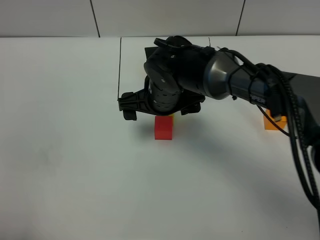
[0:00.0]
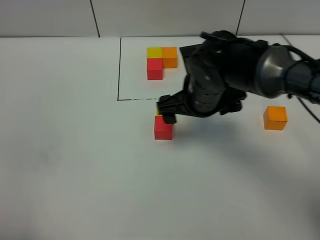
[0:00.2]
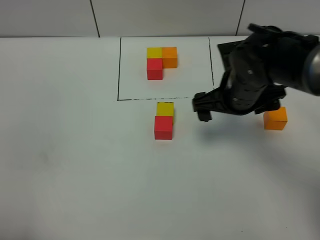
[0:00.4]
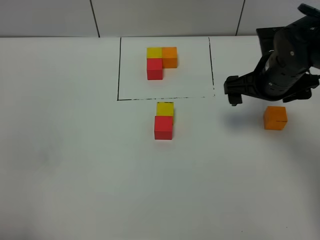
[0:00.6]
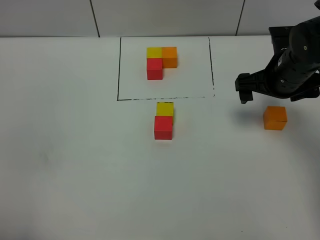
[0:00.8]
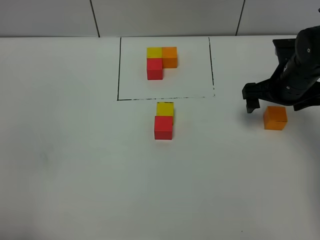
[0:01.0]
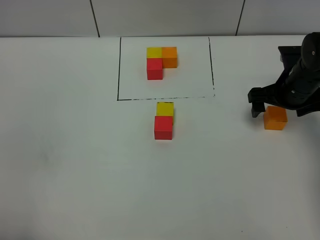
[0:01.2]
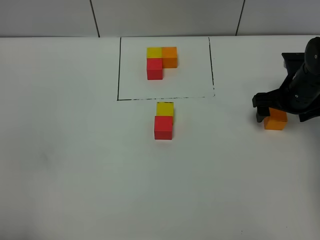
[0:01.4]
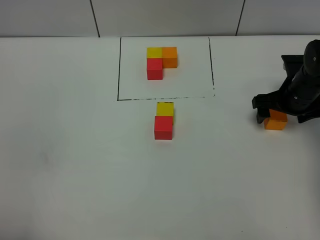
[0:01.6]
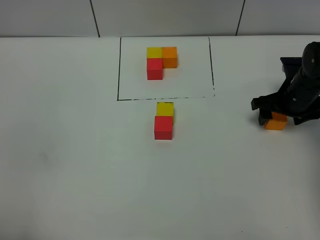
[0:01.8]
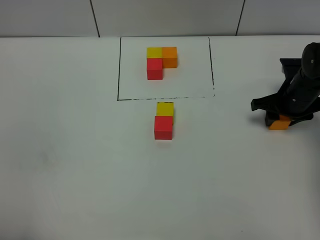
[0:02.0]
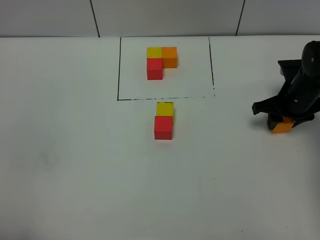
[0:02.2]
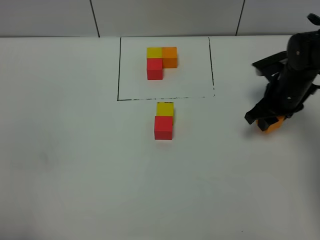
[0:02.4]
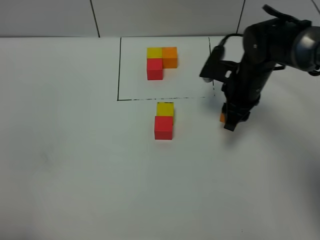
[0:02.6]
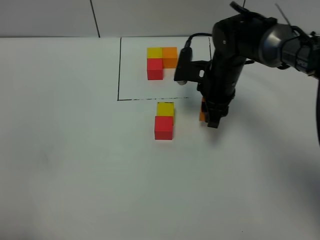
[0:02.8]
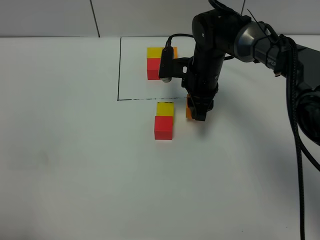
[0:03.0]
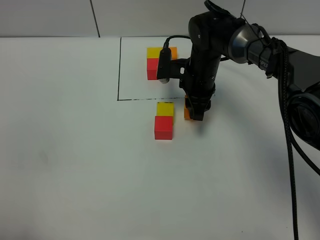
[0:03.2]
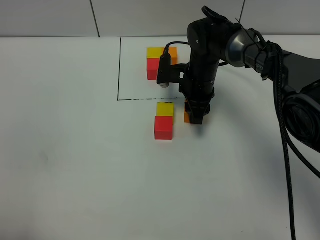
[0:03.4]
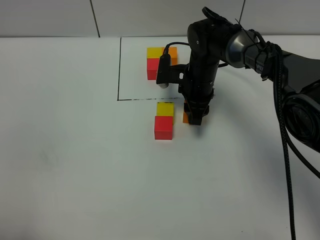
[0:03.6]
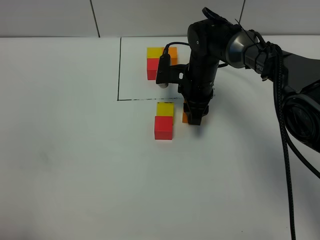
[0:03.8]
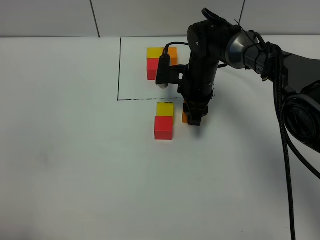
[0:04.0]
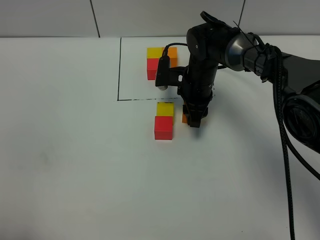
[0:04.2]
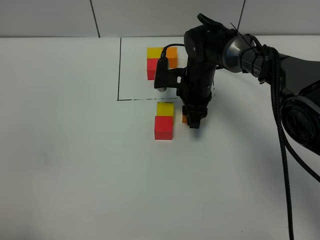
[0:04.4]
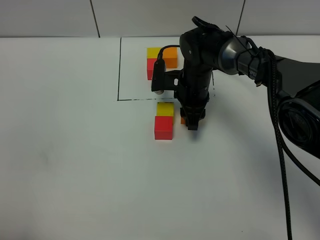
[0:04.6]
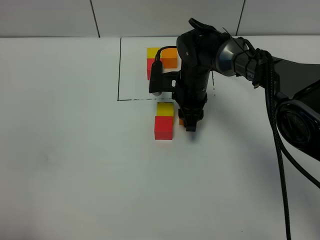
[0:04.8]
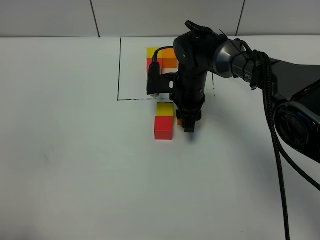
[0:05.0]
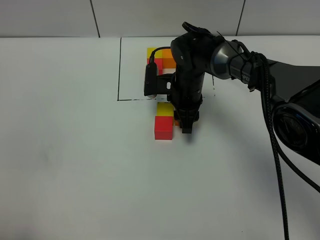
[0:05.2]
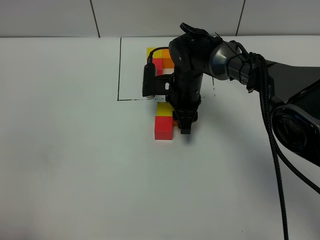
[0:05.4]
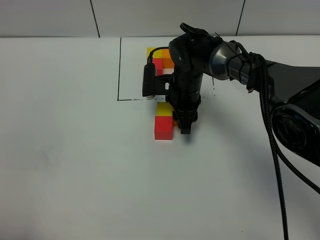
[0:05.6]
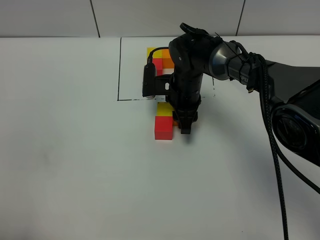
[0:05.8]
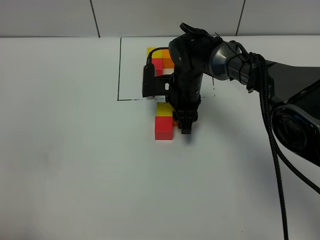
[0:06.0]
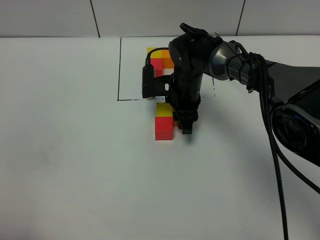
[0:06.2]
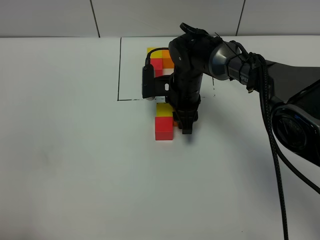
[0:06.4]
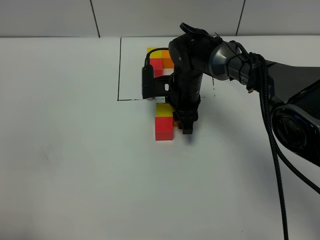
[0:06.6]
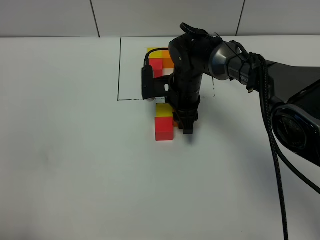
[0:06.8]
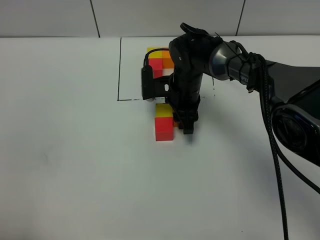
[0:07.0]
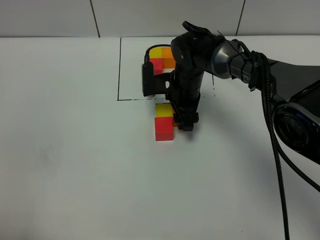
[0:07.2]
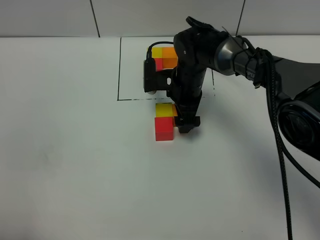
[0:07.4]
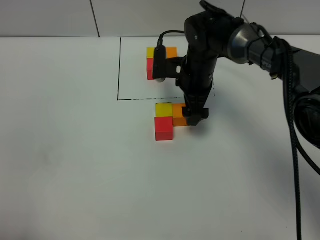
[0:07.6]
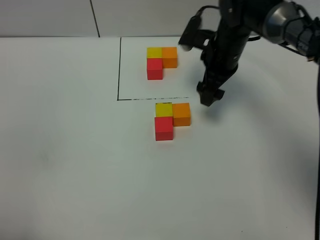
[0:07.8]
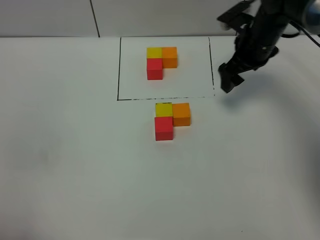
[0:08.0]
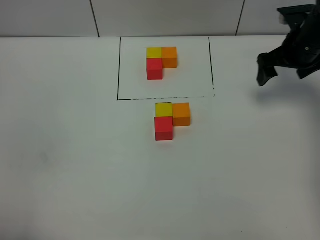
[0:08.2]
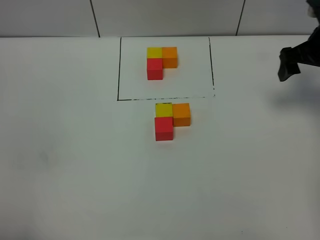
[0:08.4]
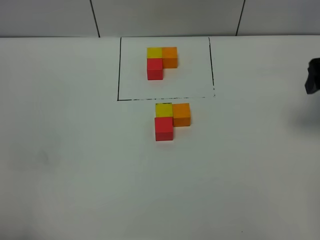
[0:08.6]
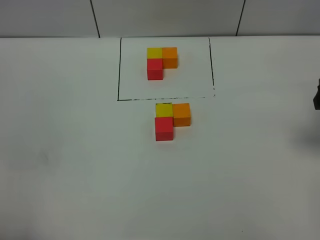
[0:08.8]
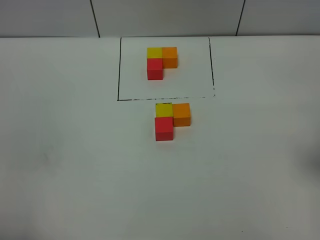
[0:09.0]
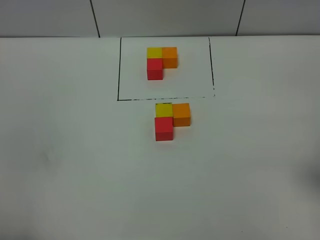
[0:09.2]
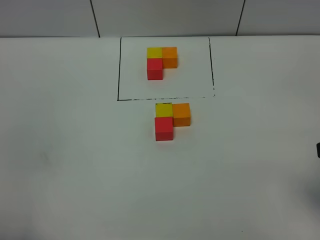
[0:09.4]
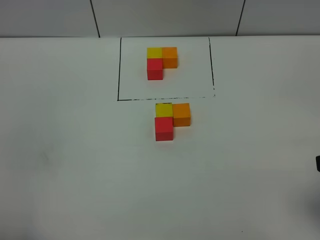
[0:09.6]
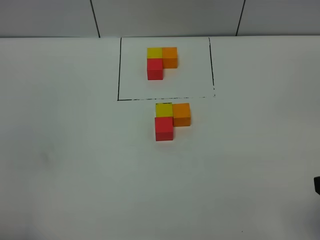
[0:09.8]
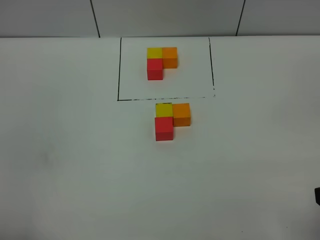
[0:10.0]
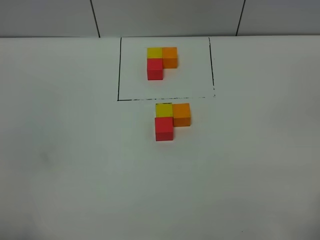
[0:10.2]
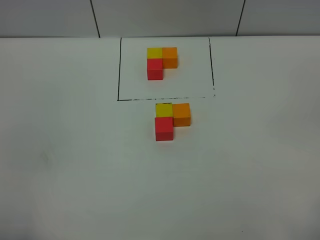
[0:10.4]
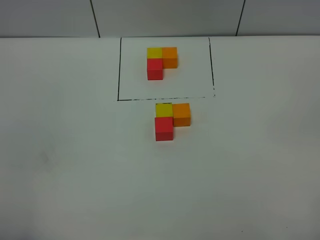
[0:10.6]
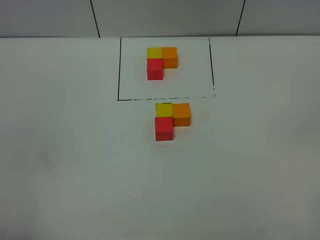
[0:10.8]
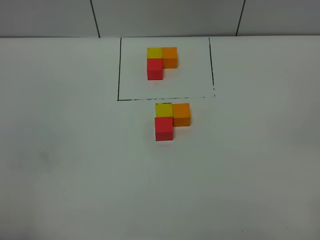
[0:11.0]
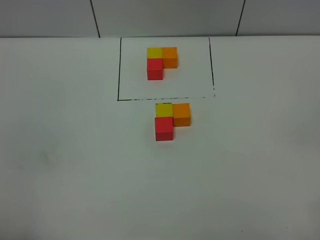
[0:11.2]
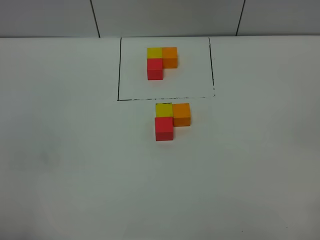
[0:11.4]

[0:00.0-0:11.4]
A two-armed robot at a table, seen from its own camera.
Task of the whole recording: According to the building block template in front, assemble the scattered blocks together.
Step, 0:00.0 to 0:07.6: Put the orange build block on the right of the yellow build block.
0:00.0 to 0:01.4: The right gripper heads to the right, covering roughly 25 cm.
0:01.4 to 0:02.8: The right gripper moves to the left, roughly 15 cm, and closes.
0:02.8 to 0:04.2: The right gripper shifts by about 5 cm.
0:04.2 to 0:05.6: The grippers make only small movements.
0:05.6 to 0:07.2: The right gripper opens.
0:07.2 to 0:08.6: The right gripper moves to the right, upward and backward, roughly 35 cm, and opens its fingers.
0:08.6 to 0:10.0: The right gripper travels backward by approximately 25 cm.

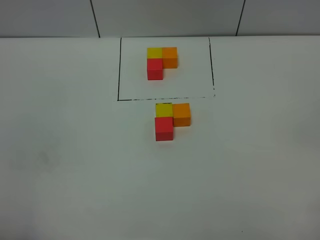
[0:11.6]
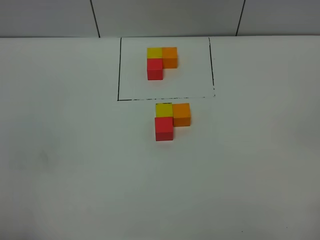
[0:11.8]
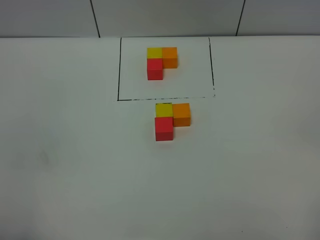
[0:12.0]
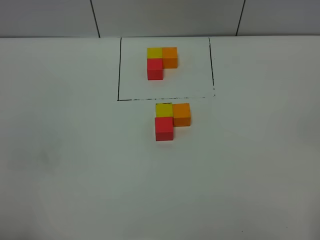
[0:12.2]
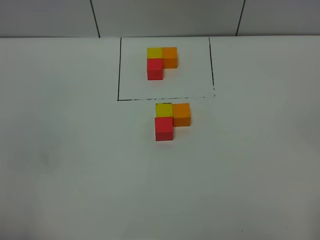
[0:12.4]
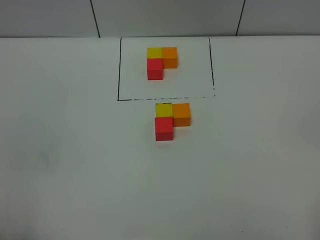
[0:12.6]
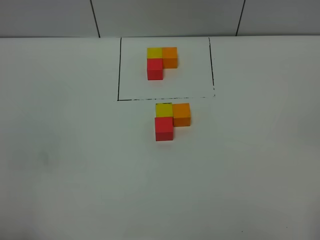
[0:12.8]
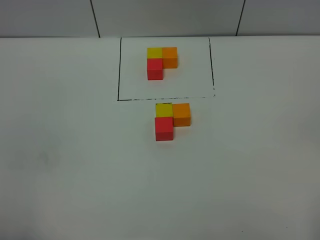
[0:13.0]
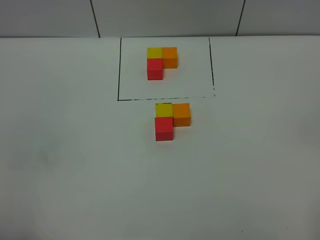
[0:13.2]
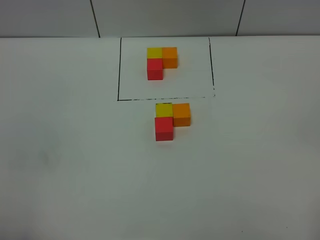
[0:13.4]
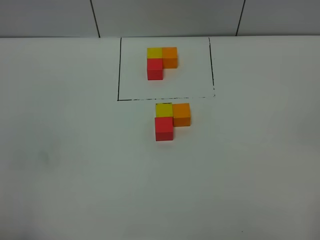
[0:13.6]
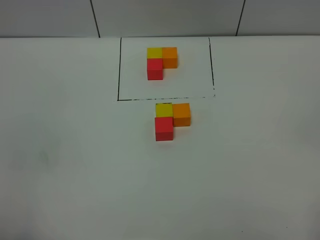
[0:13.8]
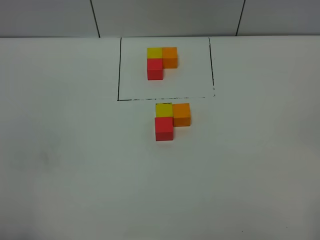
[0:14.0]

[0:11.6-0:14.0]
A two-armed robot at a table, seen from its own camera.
Task of the whole recording: According to the building block template in front, assemble the scattered blocks together.
0:12.8 to 0:14.0: Both grippers stay put.

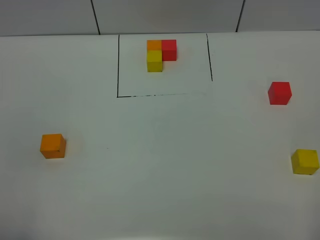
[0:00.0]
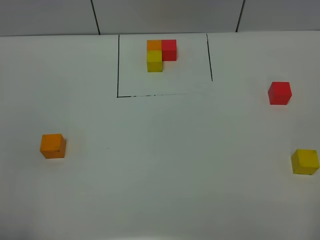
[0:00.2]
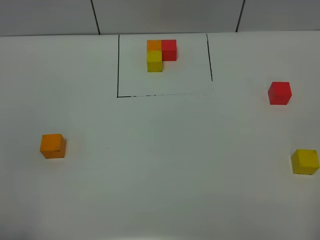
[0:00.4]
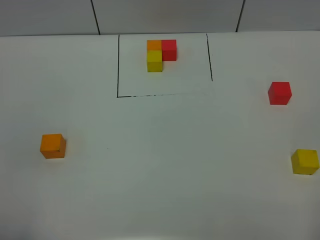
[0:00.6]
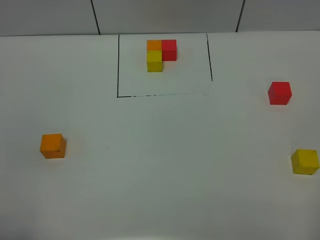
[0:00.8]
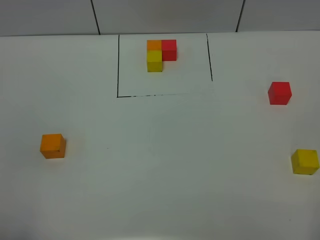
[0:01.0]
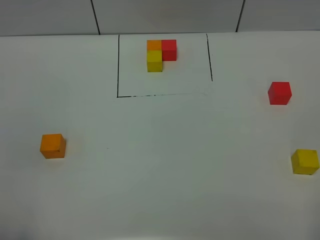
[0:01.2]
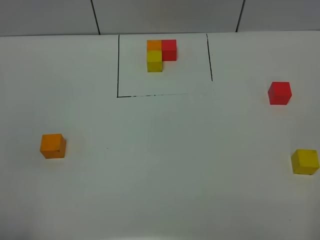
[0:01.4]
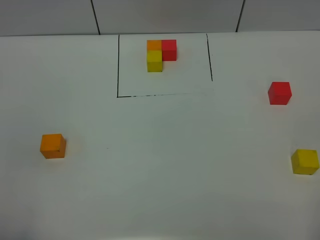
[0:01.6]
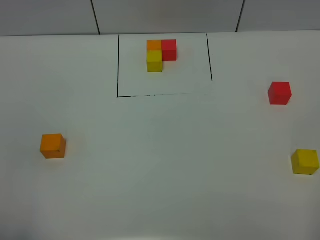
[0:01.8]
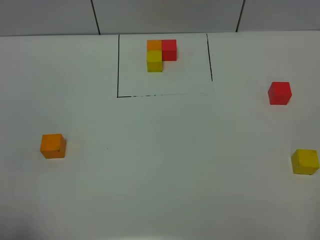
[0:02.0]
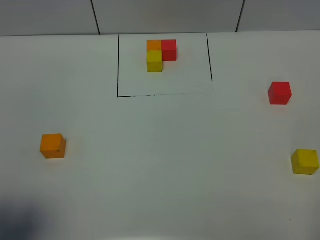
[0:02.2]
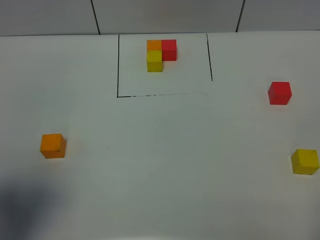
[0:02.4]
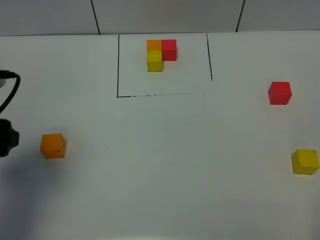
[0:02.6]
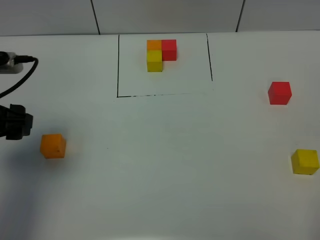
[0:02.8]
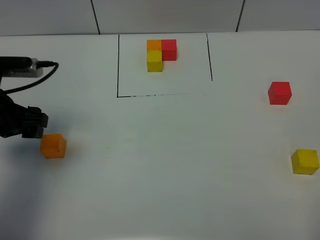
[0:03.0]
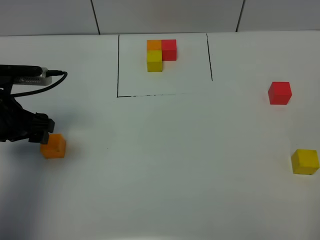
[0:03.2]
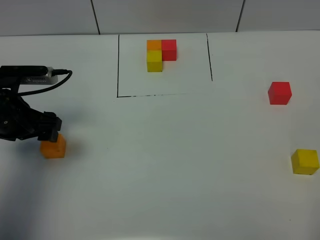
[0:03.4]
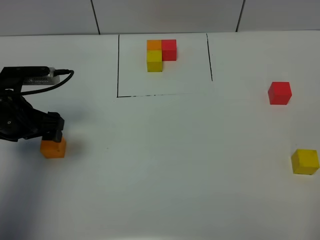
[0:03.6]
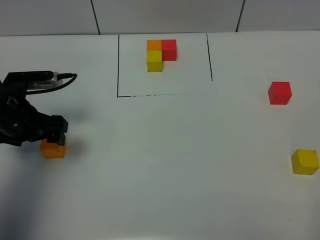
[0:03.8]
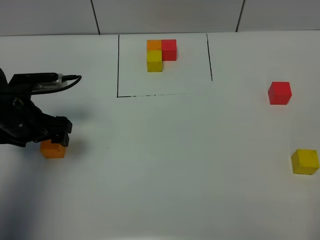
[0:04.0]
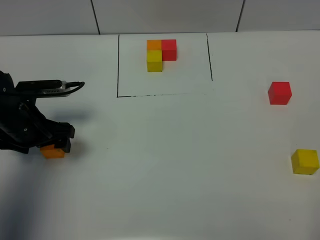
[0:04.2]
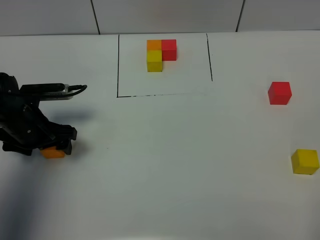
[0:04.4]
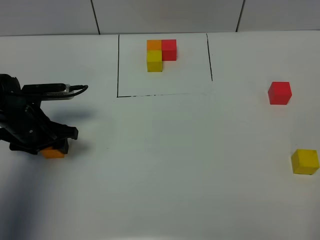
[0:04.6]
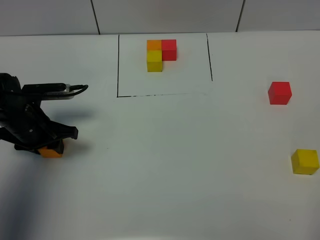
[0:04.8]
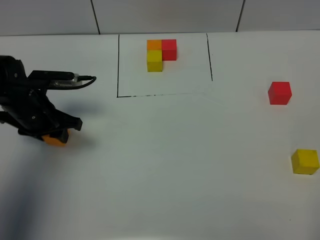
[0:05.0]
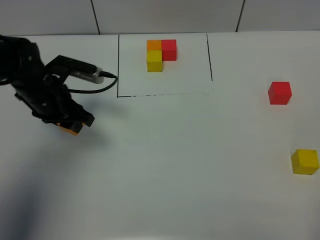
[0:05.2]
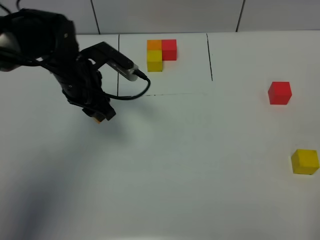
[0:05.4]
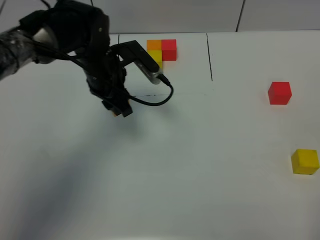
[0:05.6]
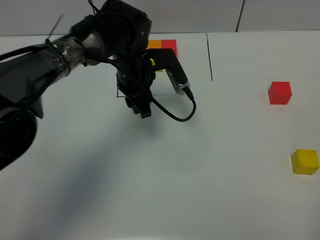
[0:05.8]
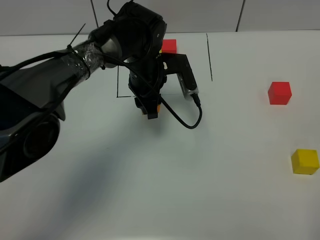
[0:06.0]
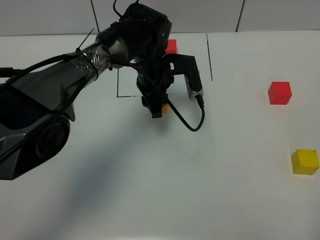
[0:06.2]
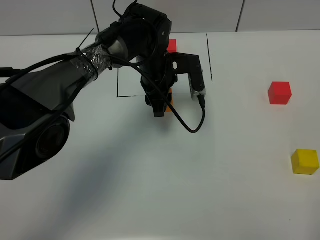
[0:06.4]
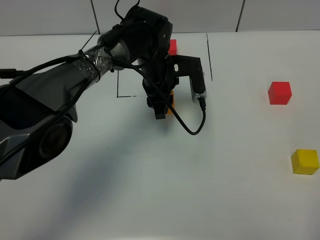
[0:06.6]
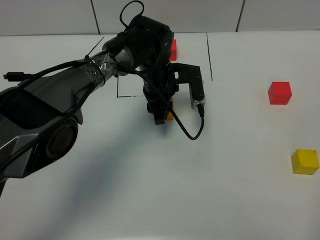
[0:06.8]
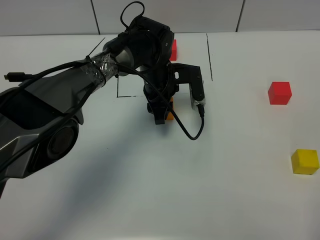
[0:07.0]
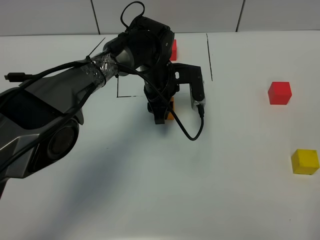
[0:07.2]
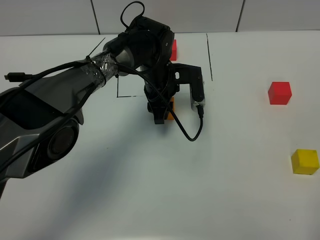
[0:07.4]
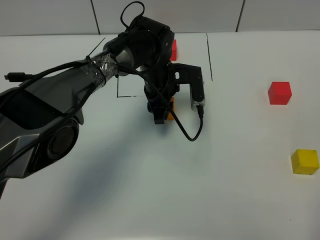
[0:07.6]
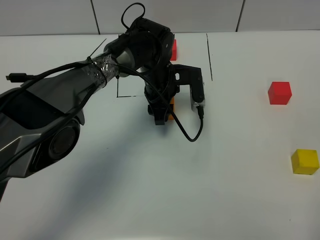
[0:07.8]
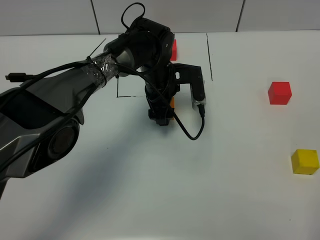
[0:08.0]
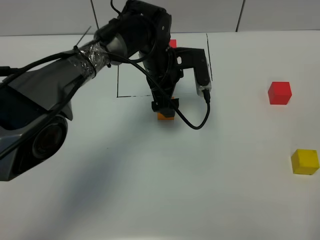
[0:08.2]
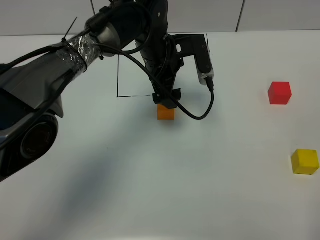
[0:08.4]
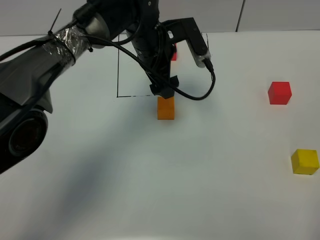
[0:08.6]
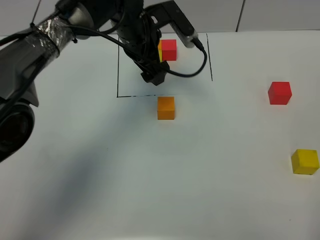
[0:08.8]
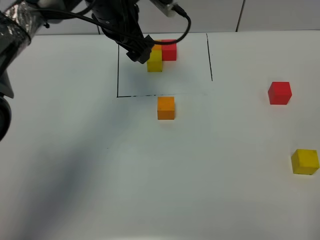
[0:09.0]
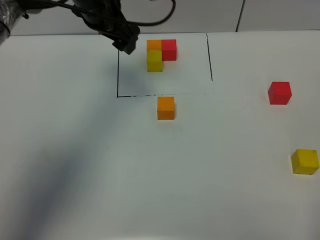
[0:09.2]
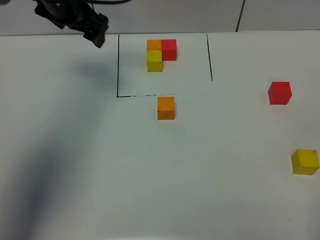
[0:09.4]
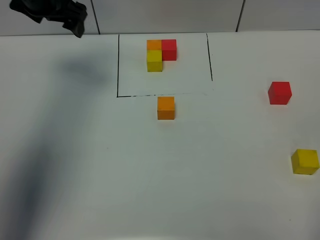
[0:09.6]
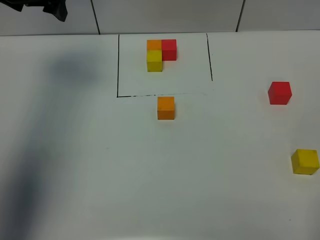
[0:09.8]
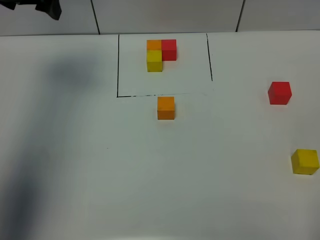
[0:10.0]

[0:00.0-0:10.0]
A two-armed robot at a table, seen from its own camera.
Task of the whole recording: According to the building block template in front, assemble the scattered blocks together.
Step, 0:00.0 to 0:07.8: Put the orange build block in the center of the table.
0:00.0 to 0:01.4: Both grippers stay about where they are.
0:01.4 to 0:02.8: The left gripper shifts some 25 cm forward.
0:02.8 to 0:04.2: The left gripper moves downward and forward, approximately 15 cm.
0:04.2 to 0:05.8: The left gripper shifts roughly 25 cm to the right and forward, and closes its fingers.
0:05.8 to 0:07.2: The left gripper shifts by roughly 5 cm.
0:07.2 to 0:08.6: The left gripper heads upward, covering about 10 cm, and opens its fingers.
0:08.6 to 0:10.0: The left gripper heads to the left and upward, covering some 25 cm.
